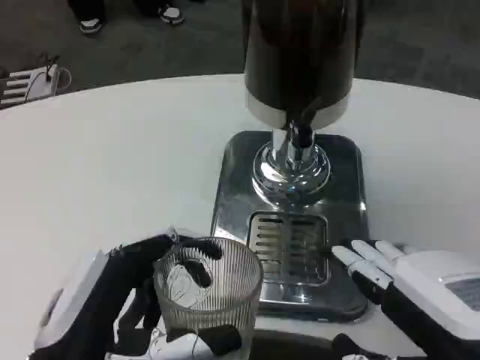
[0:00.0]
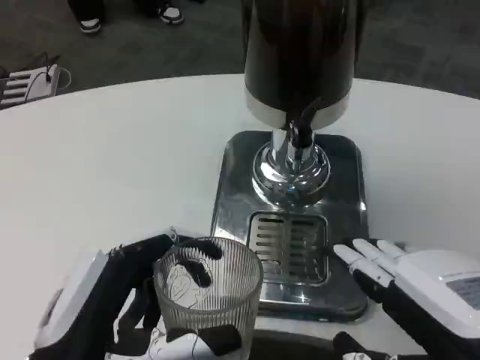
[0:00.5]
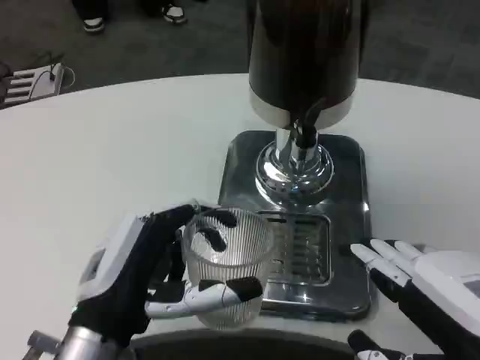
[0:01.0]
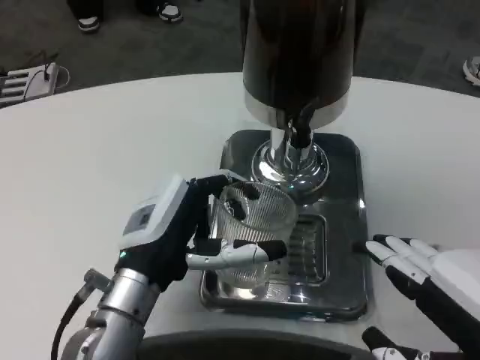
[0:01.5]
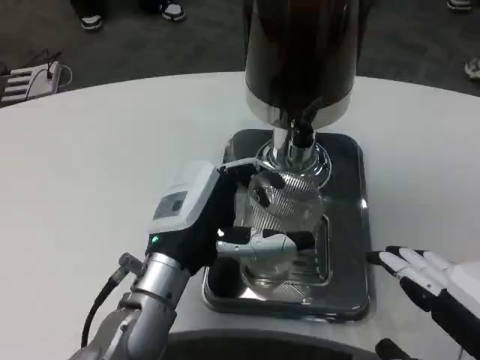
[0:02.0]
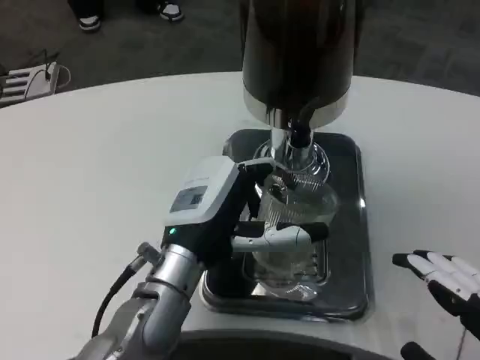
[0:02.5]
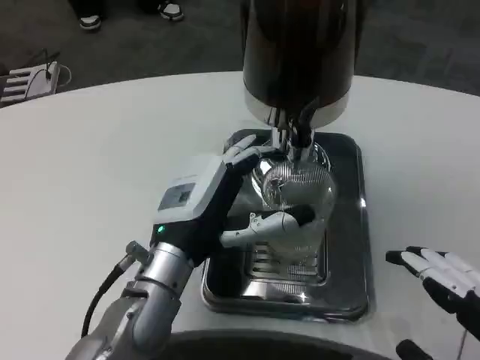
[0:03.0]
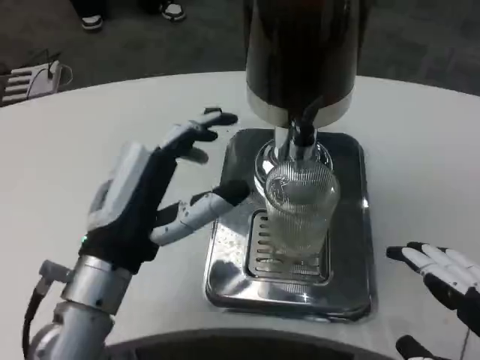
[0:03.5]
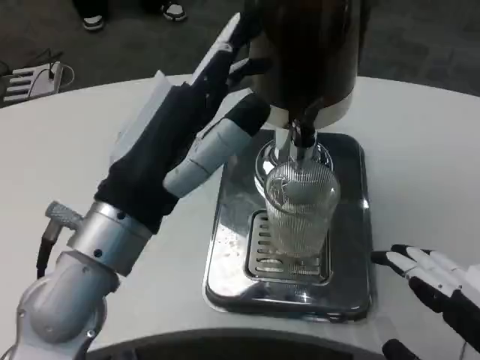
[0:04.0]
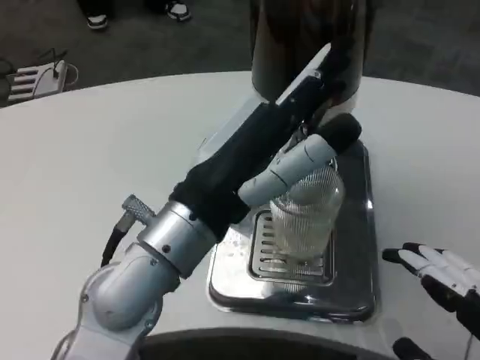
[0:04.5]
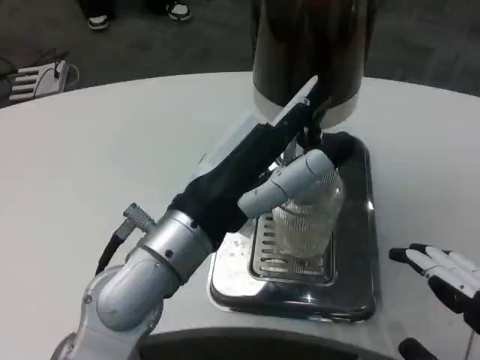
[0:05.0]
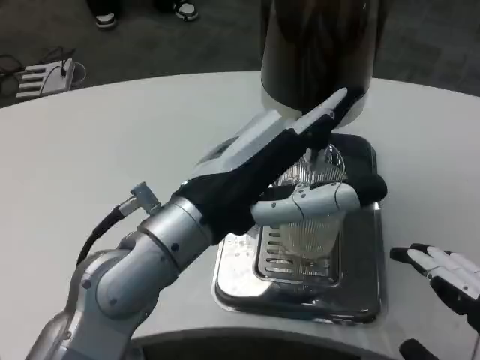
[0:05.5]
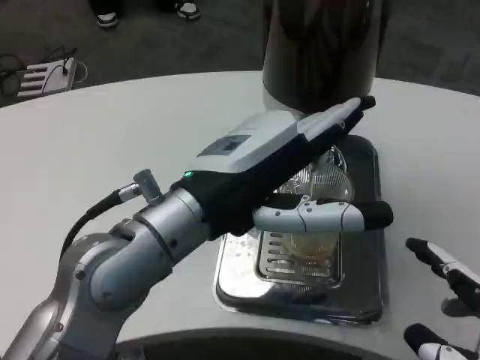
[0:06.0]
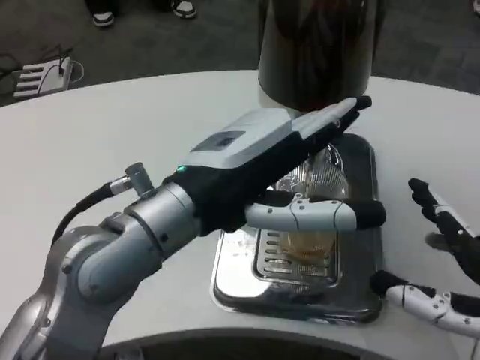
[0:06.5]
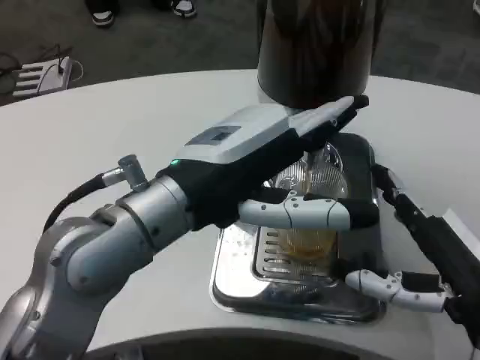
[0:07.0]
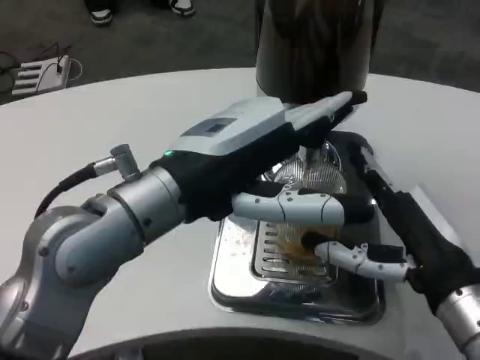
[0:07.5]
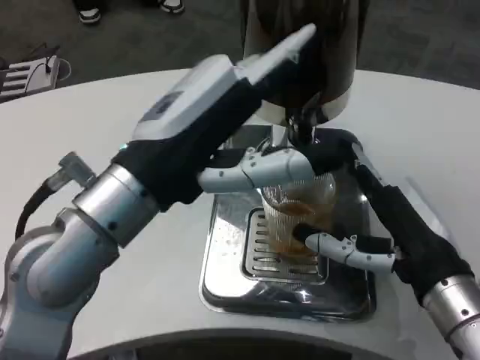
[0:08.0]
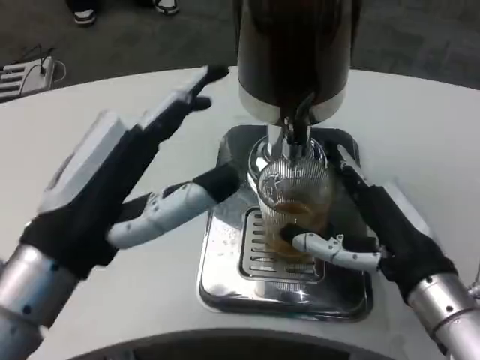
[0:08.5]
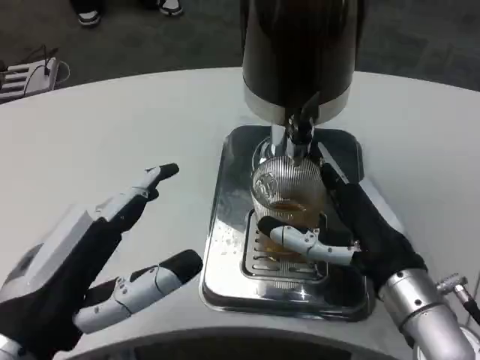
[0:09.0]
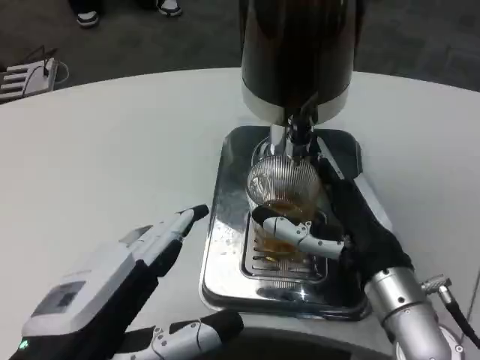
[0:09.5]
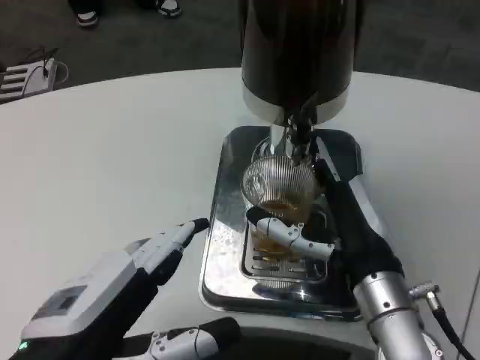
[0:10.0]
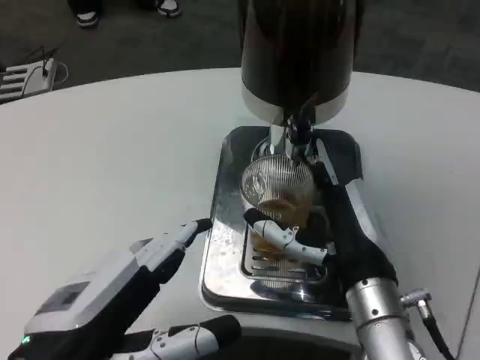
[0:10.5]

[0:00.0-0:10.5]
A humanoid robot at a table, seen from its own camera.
Task of the whole recording: Grasp the cup under the faucet to collect the drink, then remove the cup.
0:00.0 to 0:02.0: The left hand heads forward and to the right, covering about 15 cm.
0:02.0 to 0:04.0: The left hand travels upward and backward by some 10 cm.
0:04.0 to 0:06.5: The right hand moves forward and downward, about 10 cm.
0:06.5 to 0:08.5: The left hand shifts about 10 cm to the left and backward; the right hand heads forward and to the left, covering some 10 cm.
0:08.5 to 0:10.5: The left hand changes place by some 5 cm. The right hand moves to the left, some 5 cm.

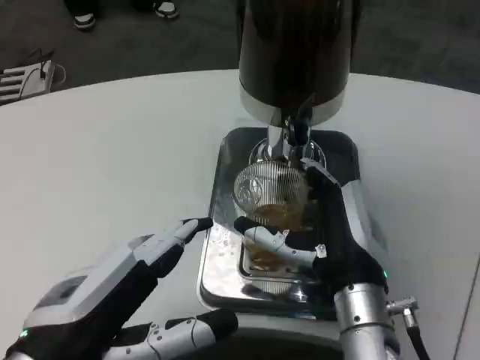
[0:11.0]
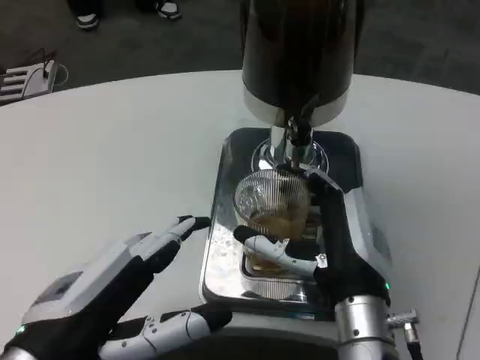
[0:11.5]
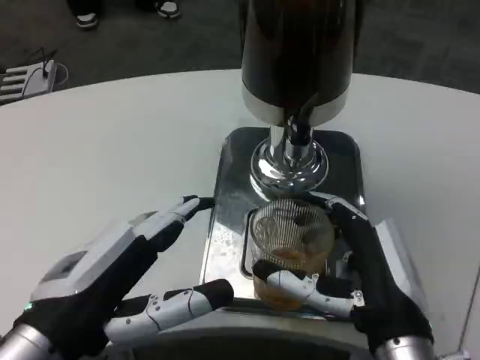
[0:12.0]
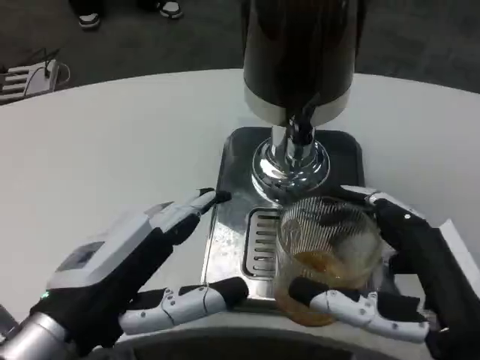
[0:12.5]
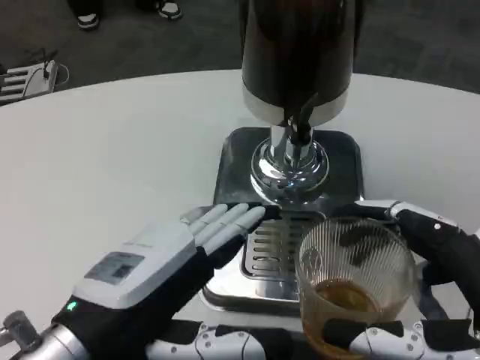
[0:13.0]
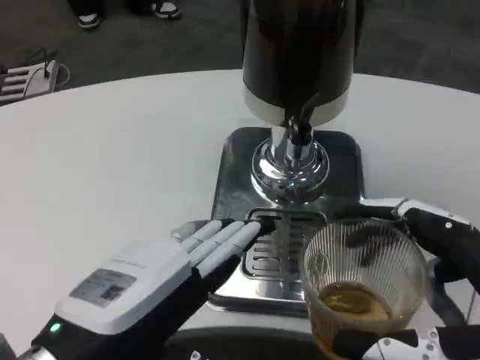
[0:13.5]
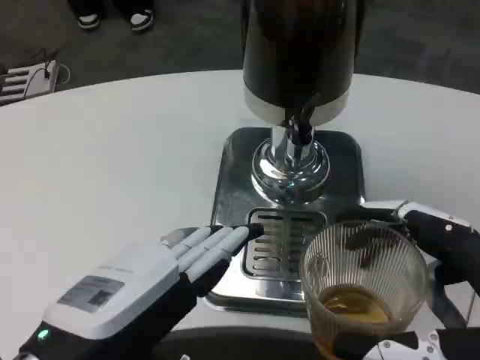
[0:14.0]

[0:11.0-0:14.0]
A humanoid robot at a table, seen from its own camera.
Task of the whole recording: Grasp the cup under the faucet to collect the drink, then remove the cup.
0:11.0 to 0:12.5: The right hand moves backward and to the right, some 15 cm.
0:12.5 to 0:14.0: The right hand moves about 5 cm. The left hand changes place by about 5 cm.

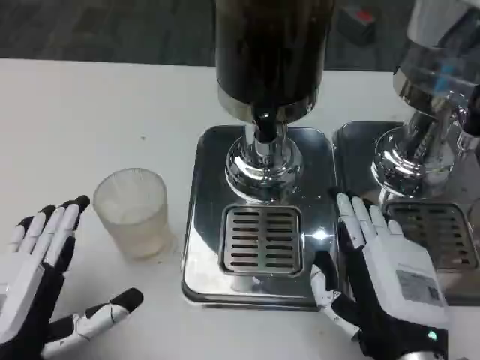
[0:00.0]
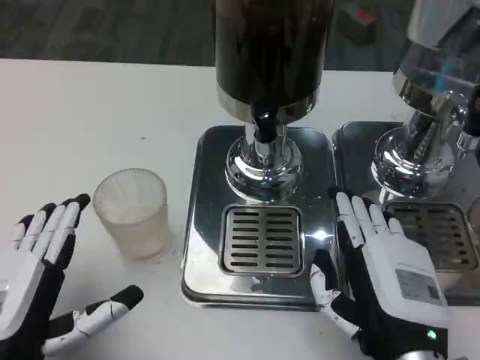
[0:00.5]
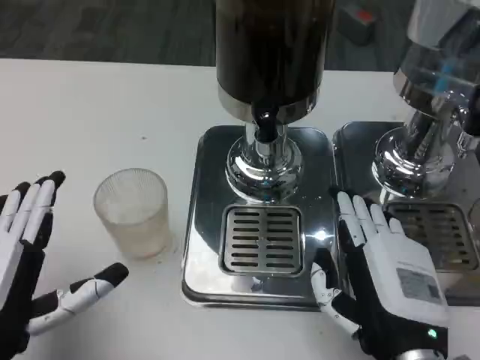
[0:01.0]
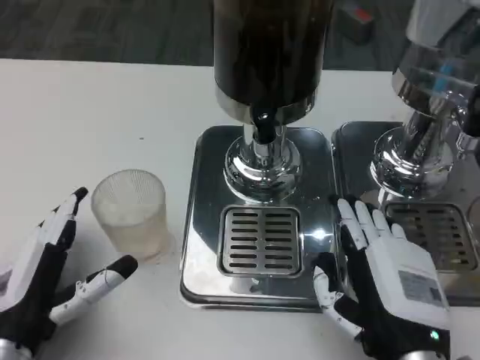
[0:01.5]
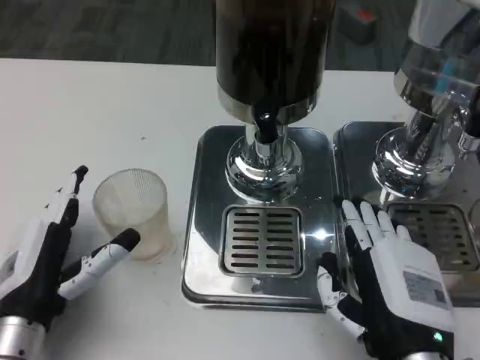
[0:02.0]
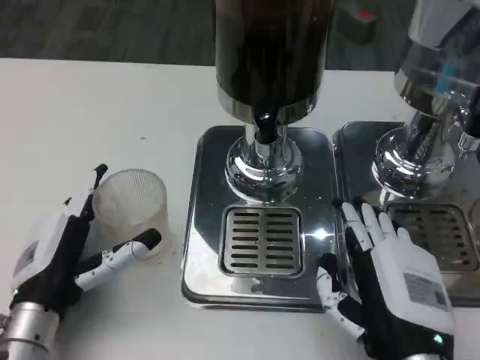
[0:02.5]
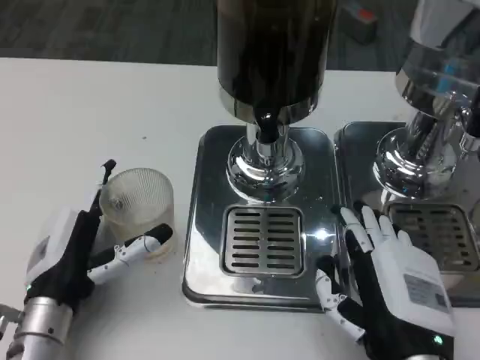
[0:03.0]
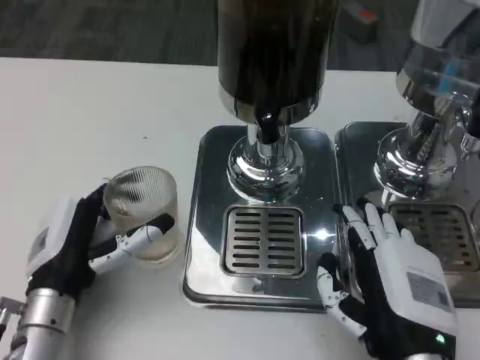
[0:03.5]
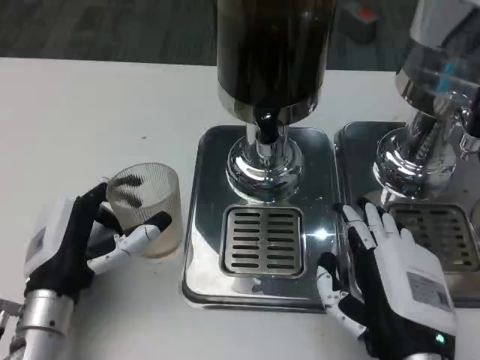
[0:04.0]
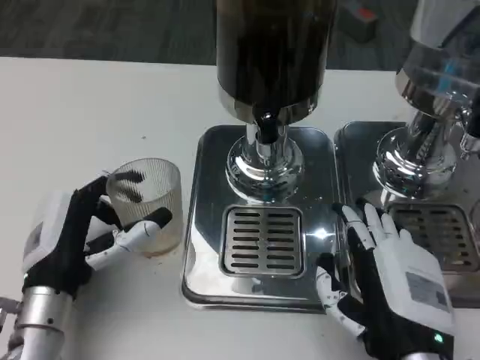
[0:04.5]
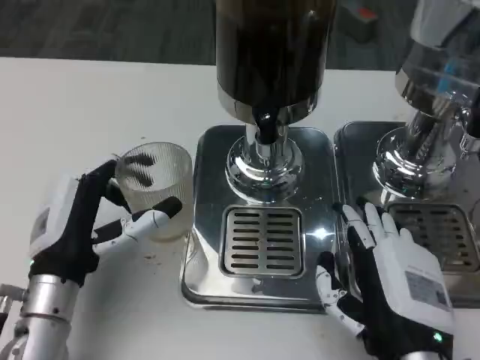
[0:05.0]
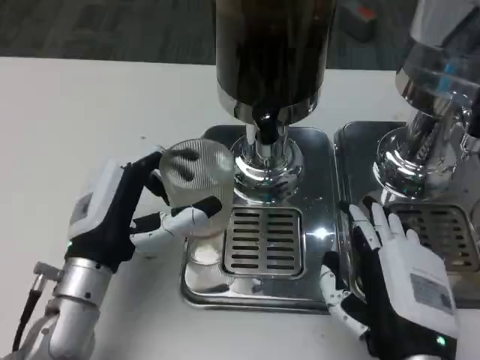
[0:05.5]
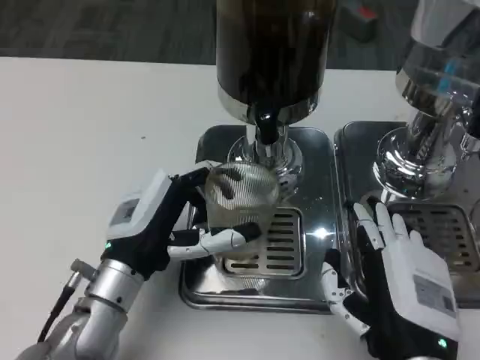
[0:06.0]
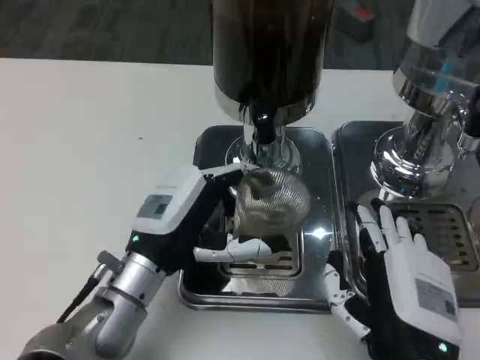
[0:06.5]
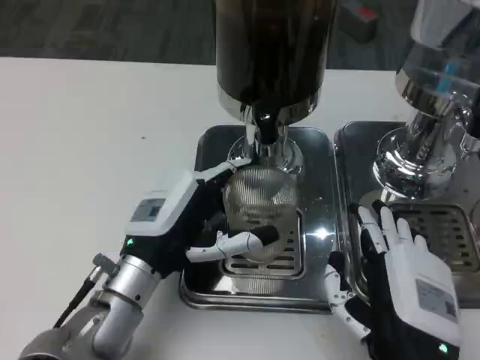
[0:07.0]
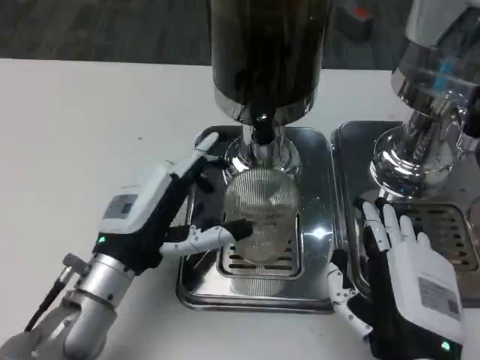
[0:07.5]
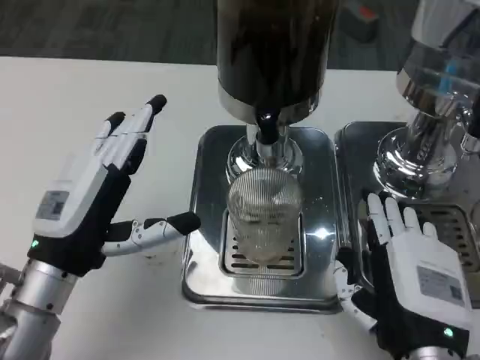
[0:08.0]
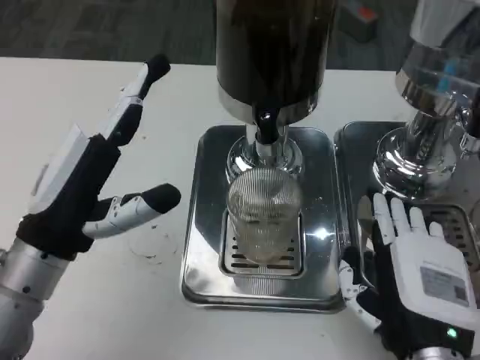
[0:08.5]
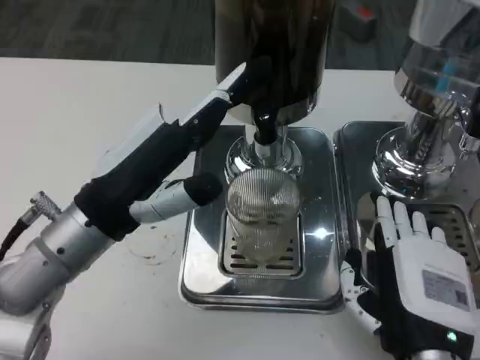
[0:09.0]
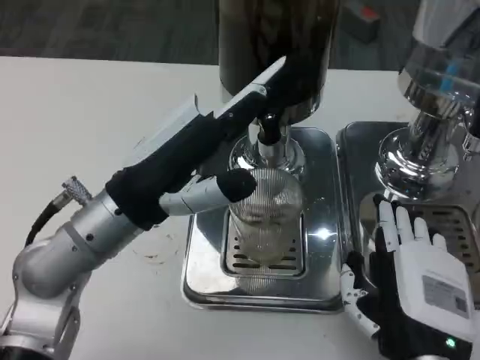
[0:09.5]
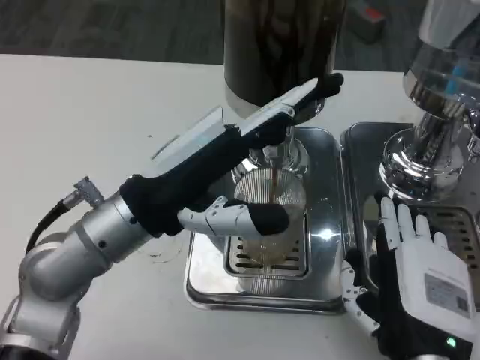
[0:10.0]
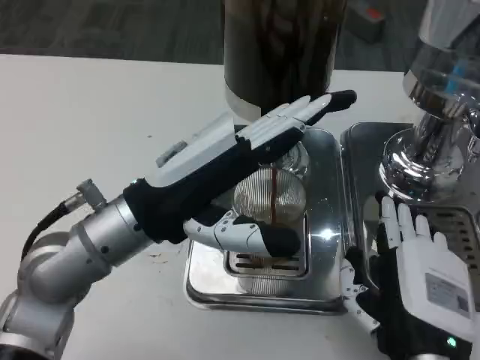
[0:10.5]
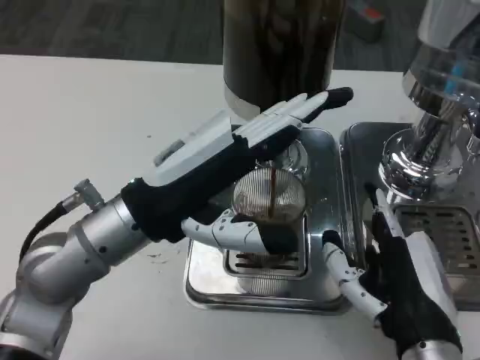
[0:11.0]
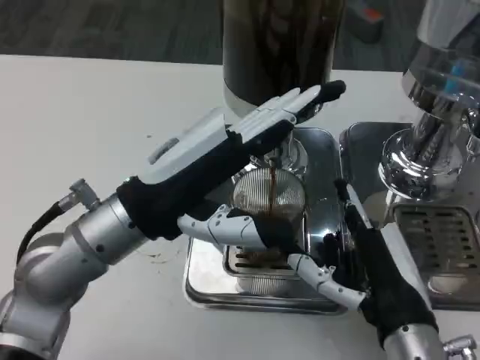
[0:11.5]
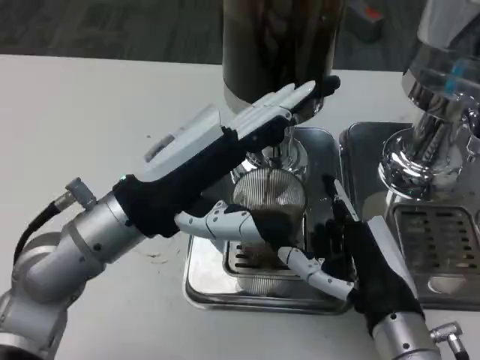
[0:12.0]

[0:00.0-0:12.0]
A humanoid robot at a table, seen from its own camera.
Task of the whole recording: Grasp the cup under the faucet to collect the drink, then remove the cup.
0:00.0 to 0:02.0: The left hand shifts some 5 cm forward.
0:02.0 to 0:04.0: The hands move only a little.
0:04.0 to 0:06.0: The left hand travels to the right by some 5 cm.
0:06.0 to 0:08.0: The left hand is displaced to the left by approximately 5 cm.
0:08.0 to 0:10.0: The left hand is displaced upward and to the right by about 10 cm.
